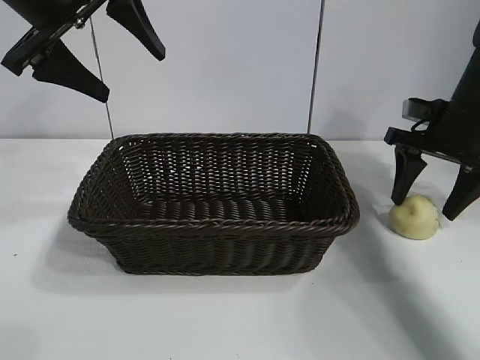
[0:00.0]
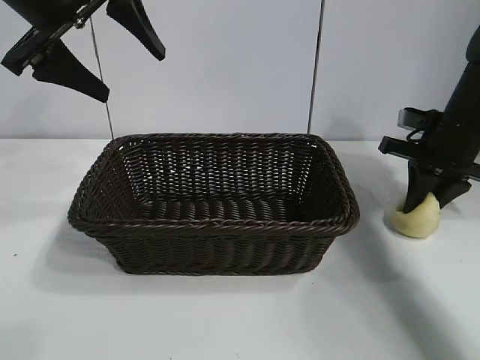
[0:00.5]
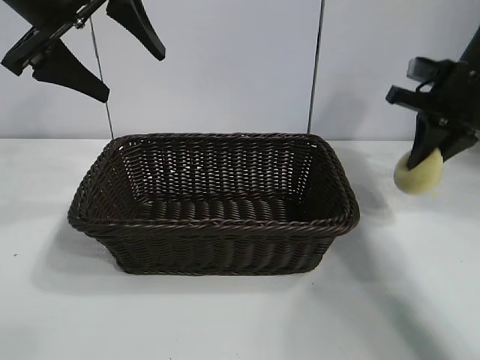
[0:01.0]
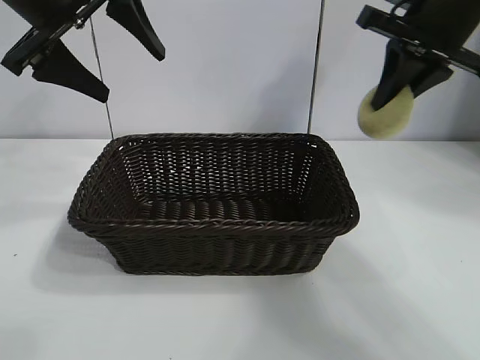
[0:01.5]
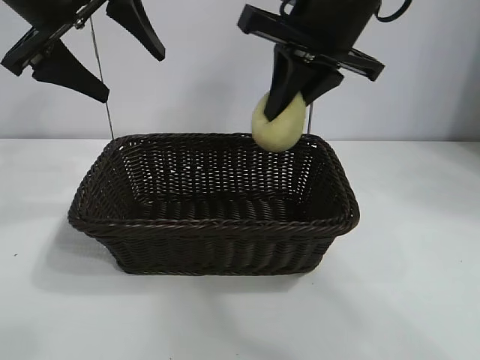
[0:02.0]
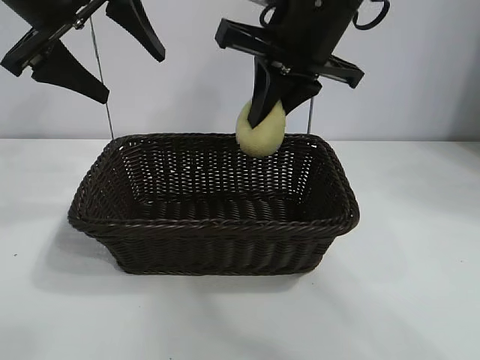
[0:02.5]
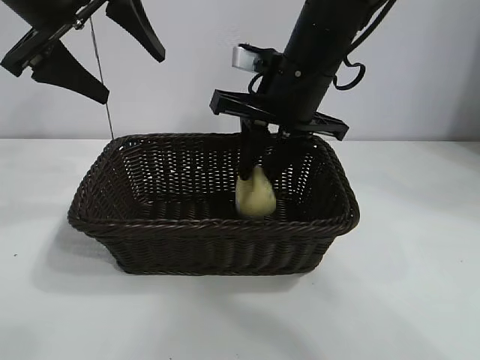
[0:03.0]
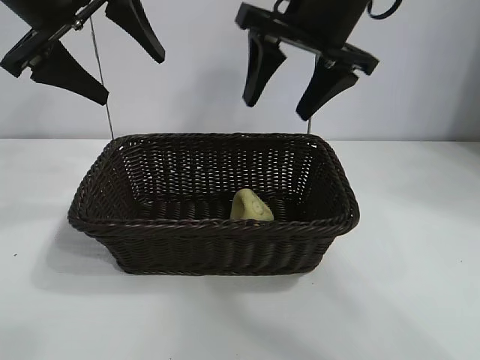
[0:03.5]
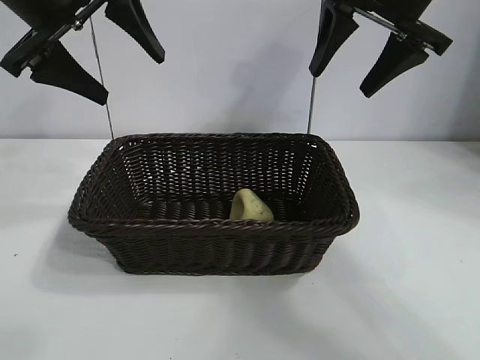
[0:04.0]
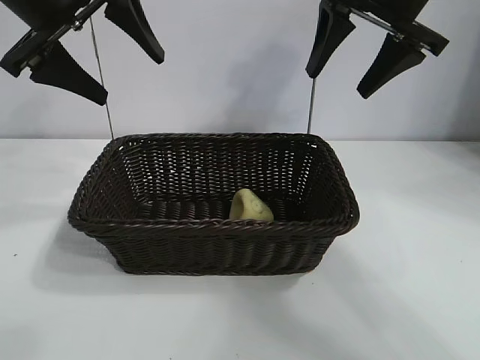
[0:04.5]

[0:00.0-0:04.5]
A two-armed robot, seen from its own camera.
Task of the whole recording: pick up the egg yolk pastry and put it into the basket.
Step, 0:01.0 to 0:03.0: Place the egg yolk pastry in the basket with right gripper.

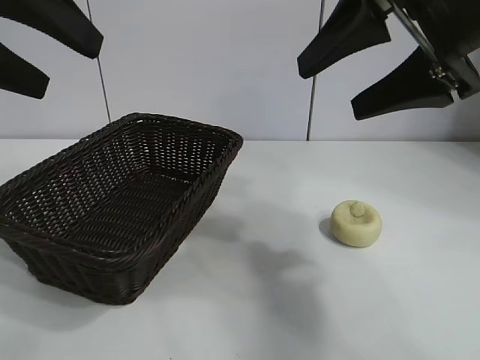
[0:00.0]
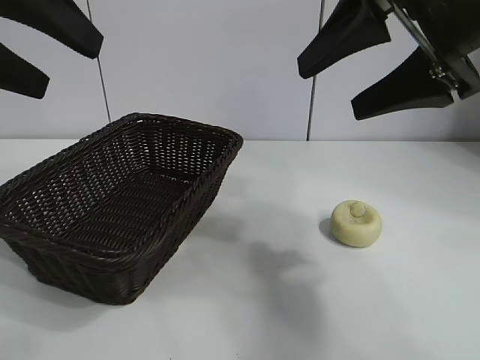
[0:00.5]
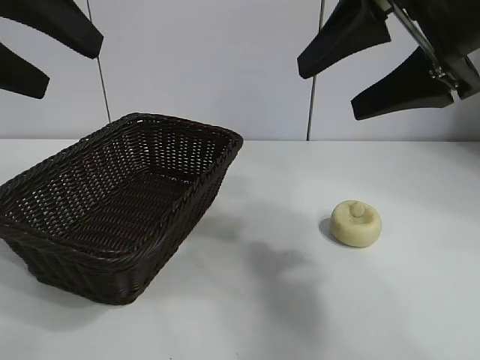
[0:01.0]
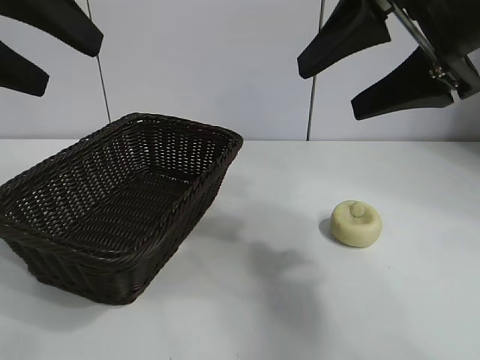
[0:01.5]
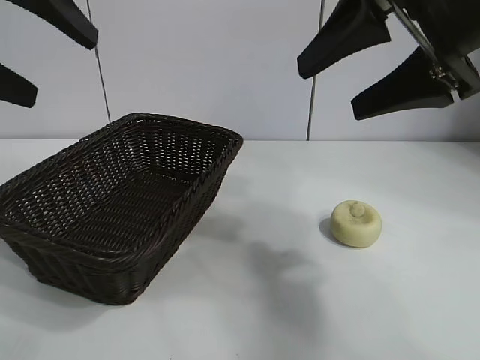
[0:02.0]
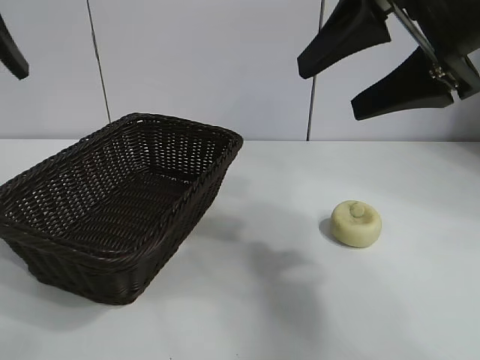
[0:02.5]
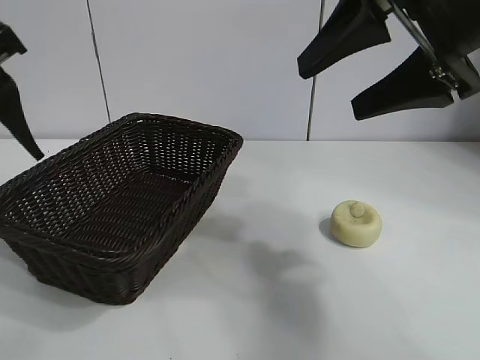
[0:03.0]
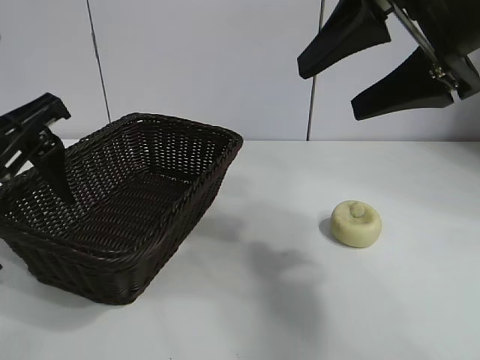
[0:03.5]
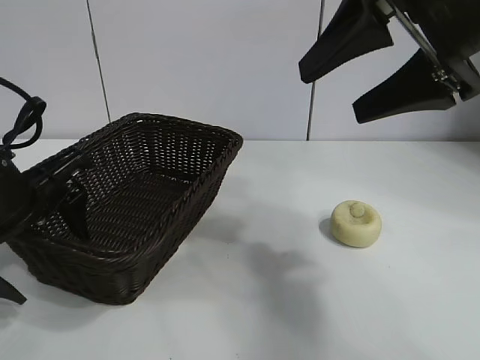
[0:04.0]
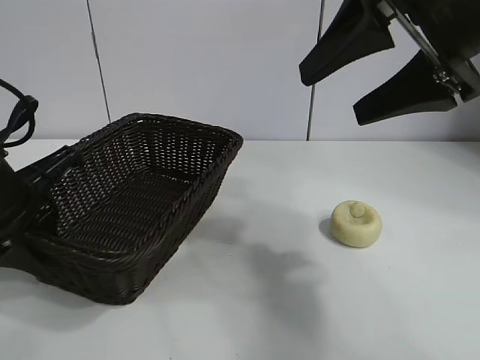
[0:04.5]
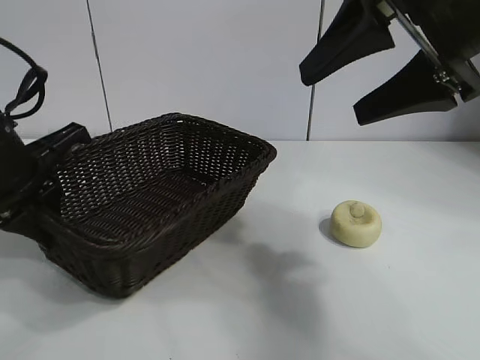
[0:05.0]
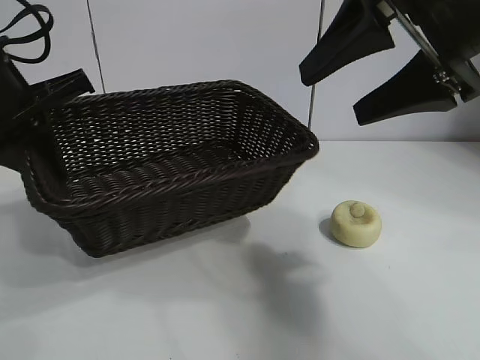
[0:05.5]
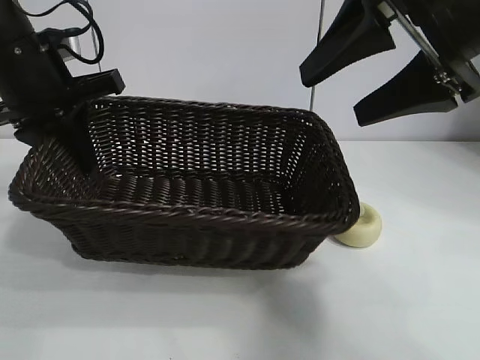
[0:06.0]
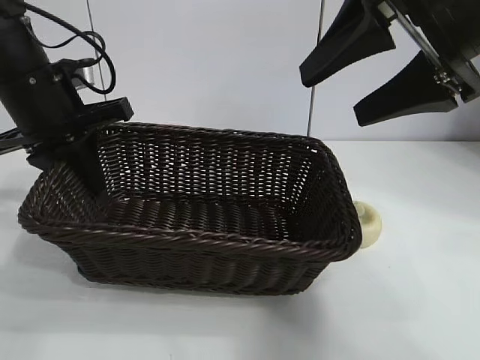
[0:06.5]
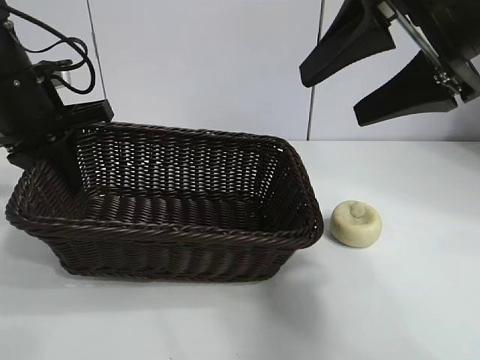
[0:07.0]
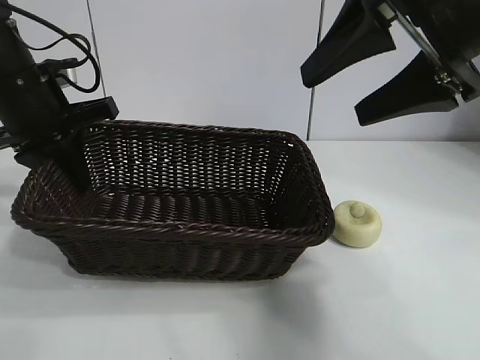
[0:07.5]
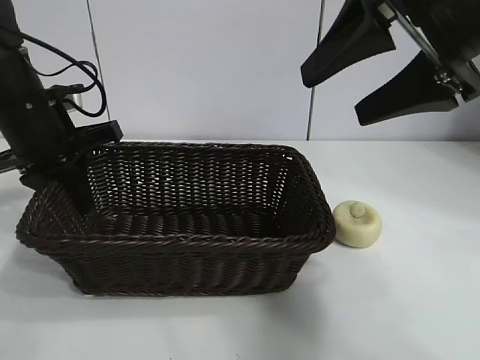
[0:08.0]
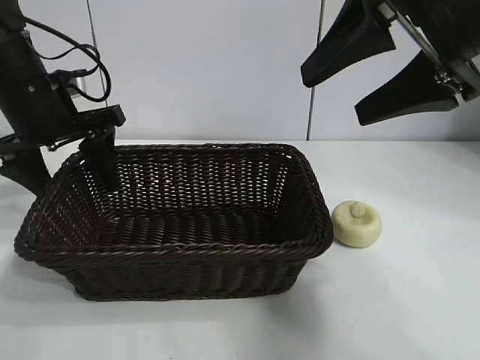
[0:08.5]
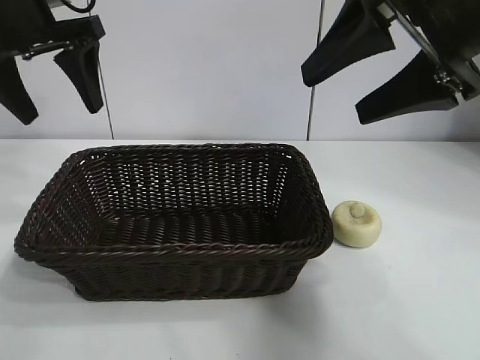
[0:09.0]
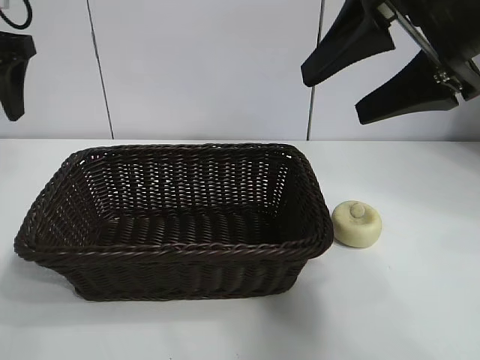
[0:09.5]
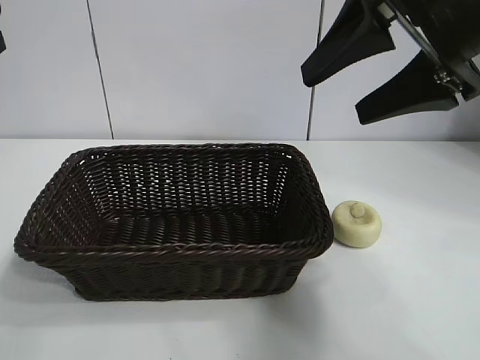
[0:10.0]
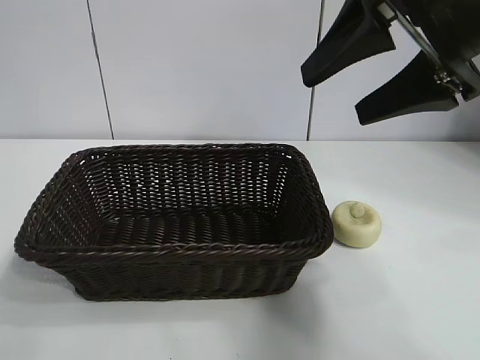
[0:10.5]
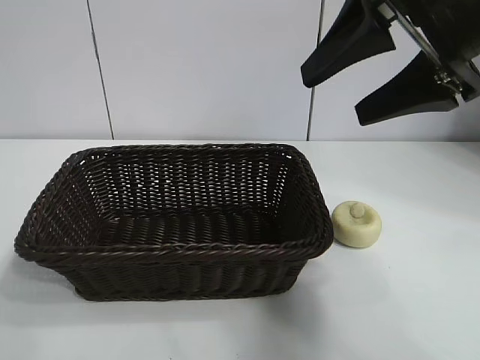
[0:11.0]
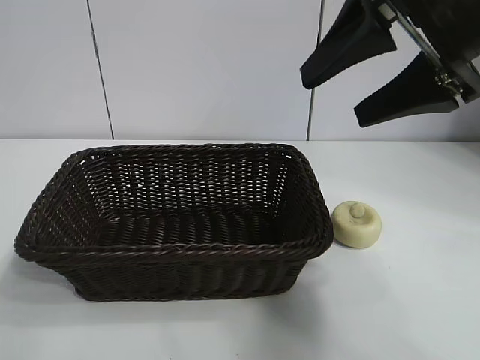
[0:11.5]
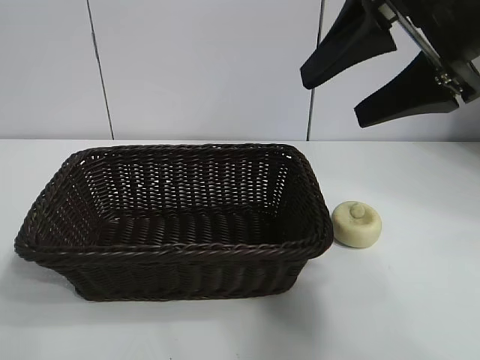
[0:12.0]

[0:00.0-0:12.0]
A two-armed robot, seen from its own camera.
Task of the whole recording: pick up the egg yolk pastry and put it into the basket.
Step, 0:01.5 to 0:04.5: Grasp the basket with left gripper.
Step, 0:05.0 to 0:08.5: Place the basket in the center of view with left gripper.

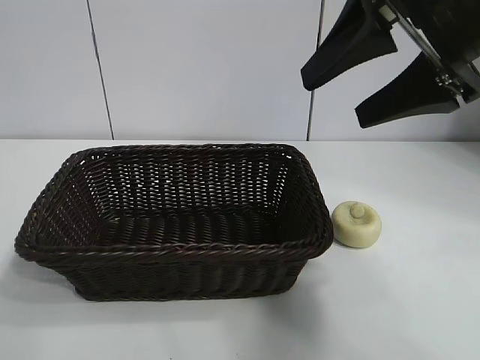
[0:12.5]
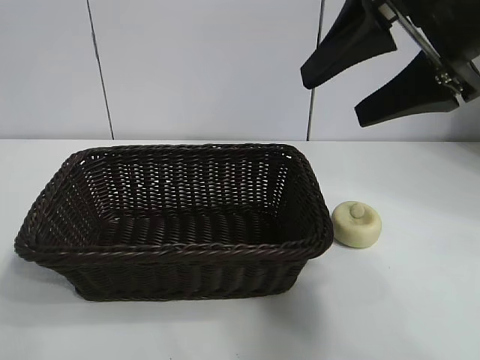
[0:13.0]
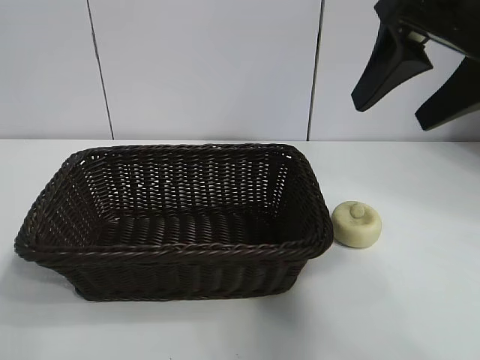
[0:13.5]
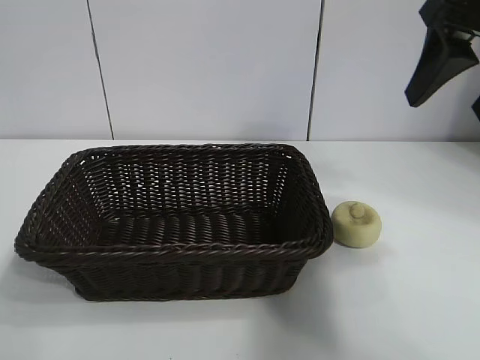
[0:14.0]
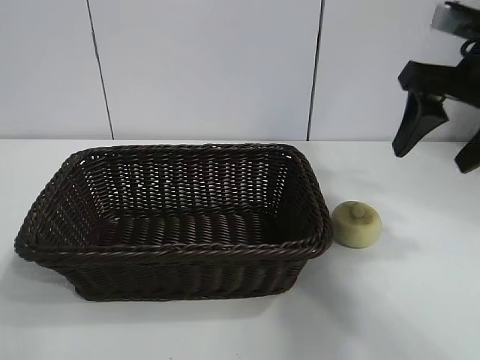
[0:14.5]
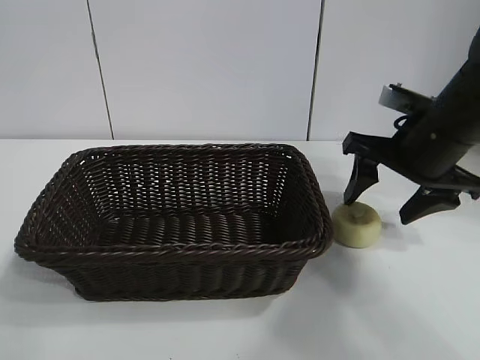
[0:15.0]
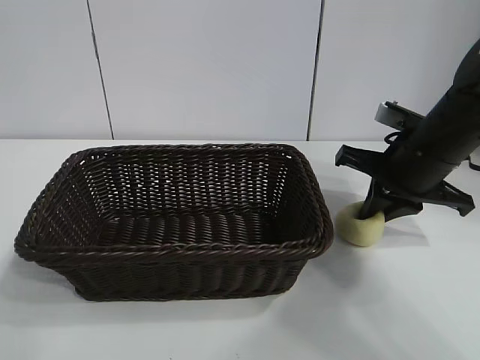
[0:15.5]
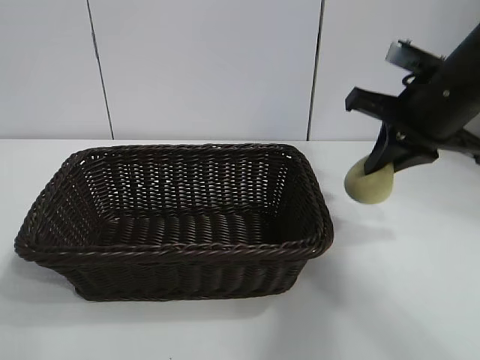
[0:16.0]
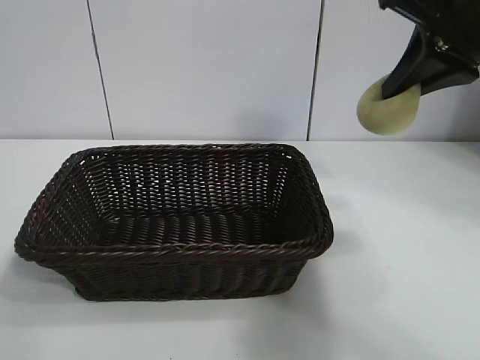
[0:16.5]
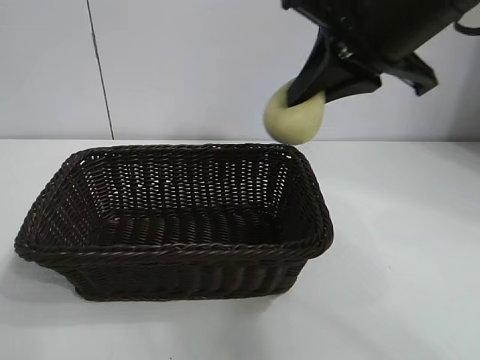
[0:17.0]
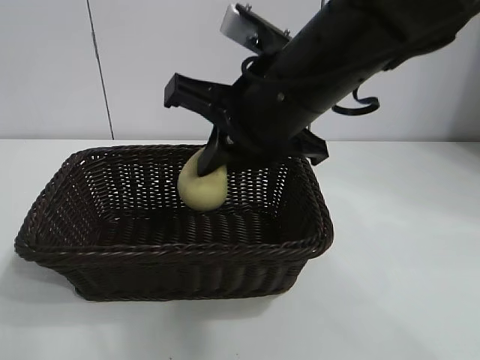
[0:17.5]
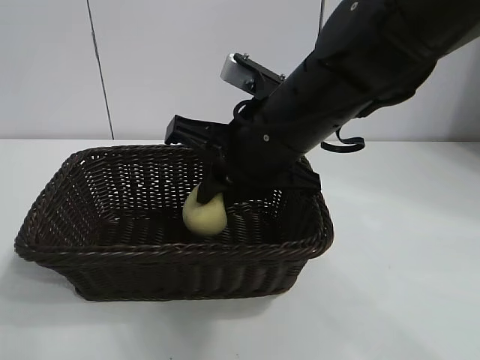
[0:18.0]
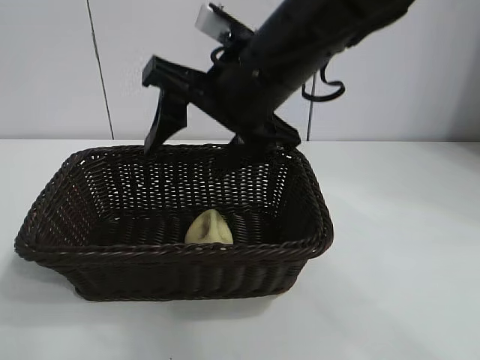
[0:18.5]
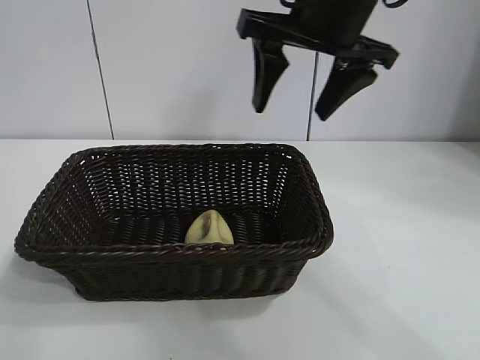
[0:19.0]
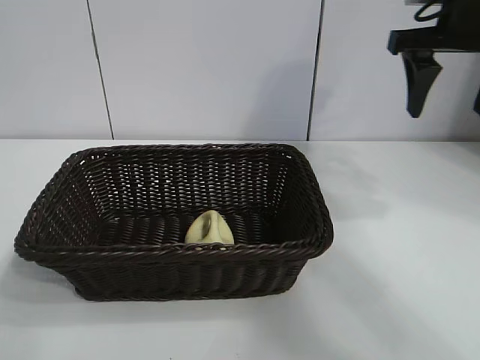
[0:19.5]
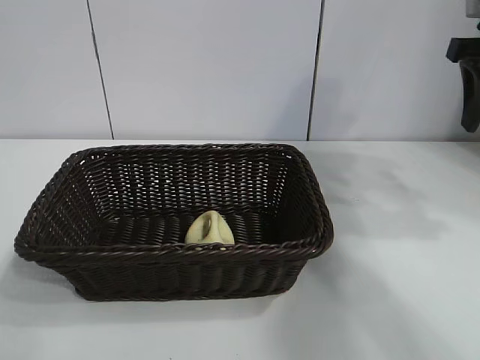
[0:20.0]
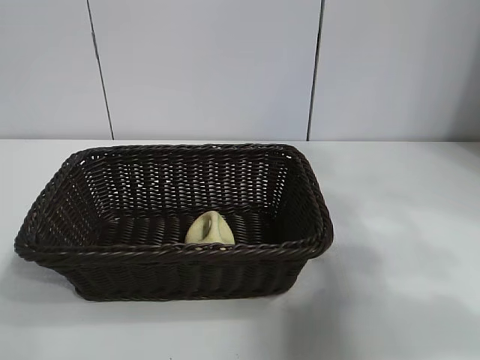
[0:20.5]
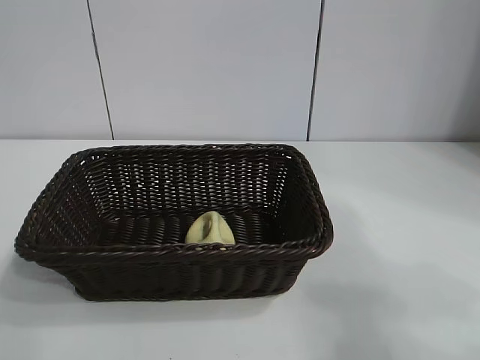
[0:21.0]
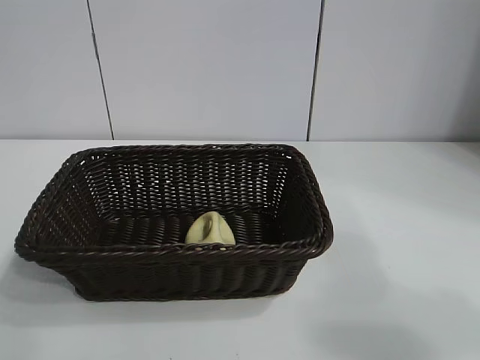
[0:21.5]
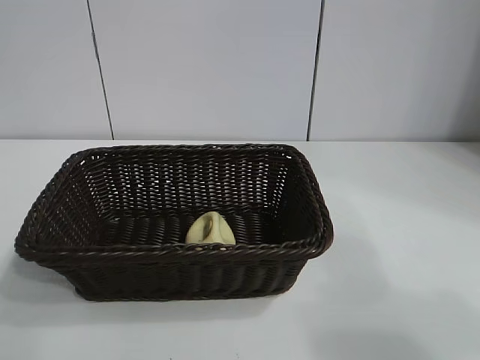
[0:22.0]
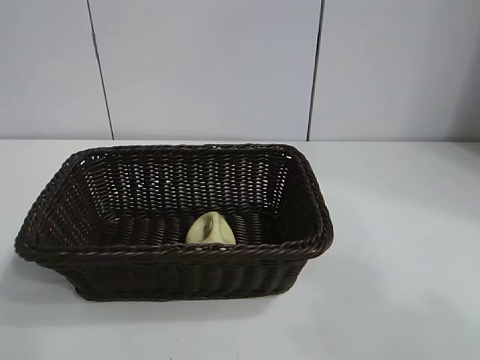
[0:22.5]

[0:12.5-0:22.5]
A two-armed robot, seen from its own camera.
Task of the whole recording: pick up the egg yolk pastry and put it into the basket.
Step, 0:12.5 to 0:15.5: Grasp egg yolk pastry with right gripper.
Step, 0:16.0 to 0:18.0: Place the egg yolk pastry in the basket with right gripper.
